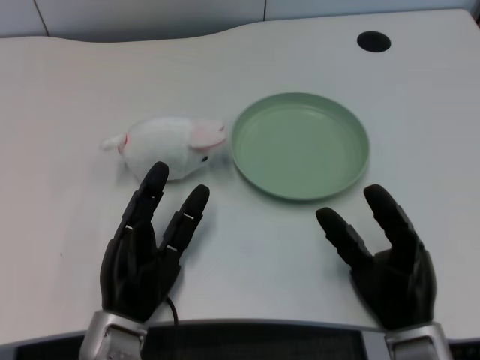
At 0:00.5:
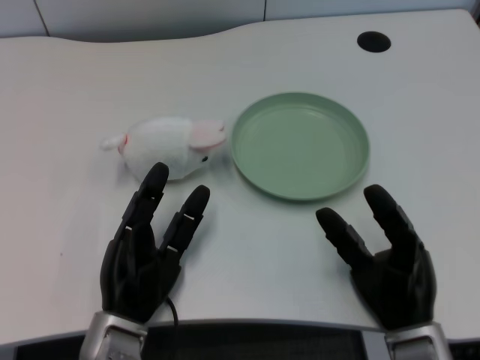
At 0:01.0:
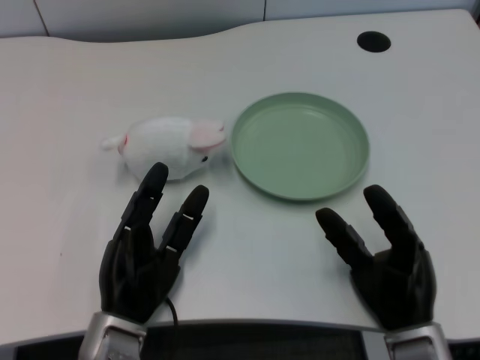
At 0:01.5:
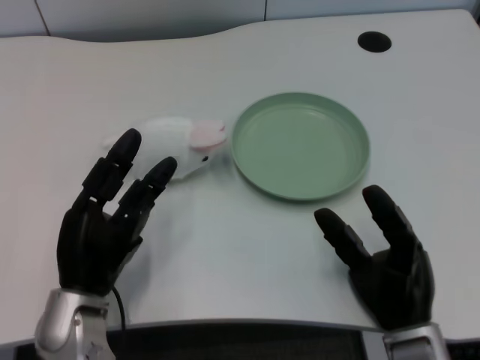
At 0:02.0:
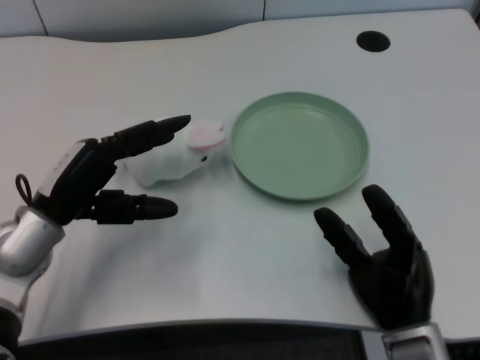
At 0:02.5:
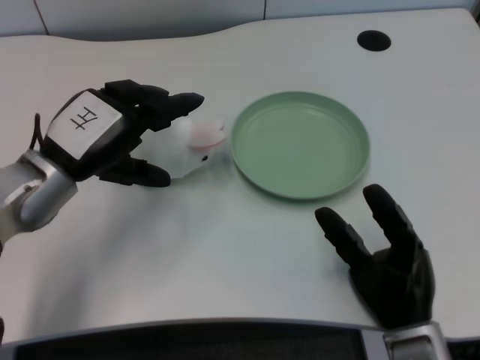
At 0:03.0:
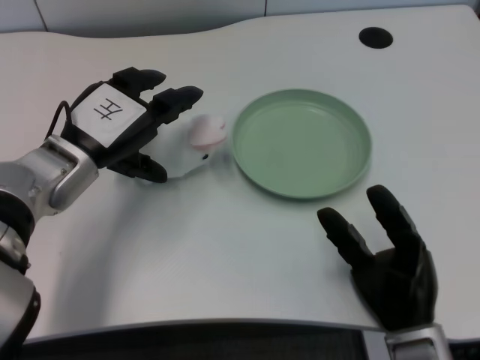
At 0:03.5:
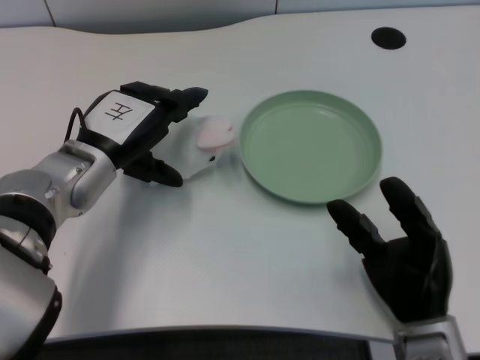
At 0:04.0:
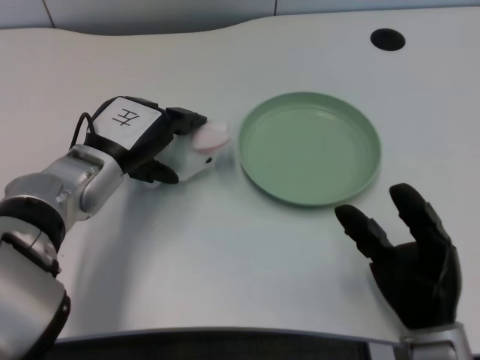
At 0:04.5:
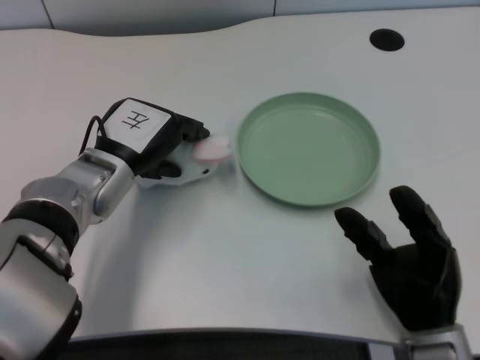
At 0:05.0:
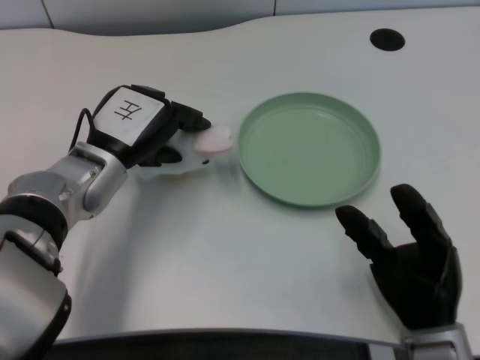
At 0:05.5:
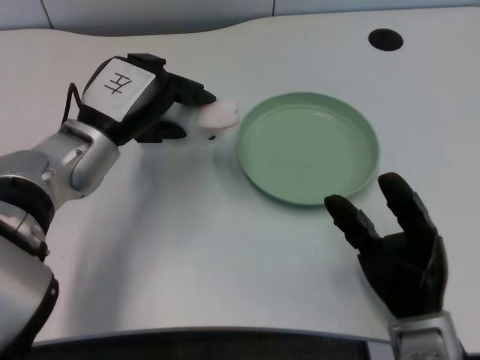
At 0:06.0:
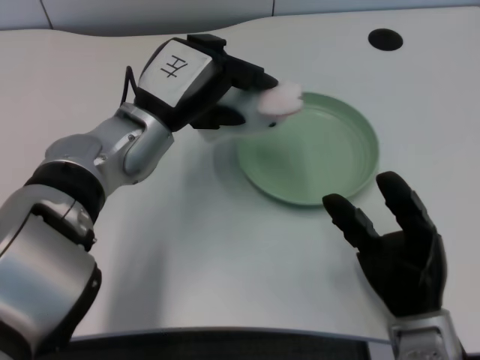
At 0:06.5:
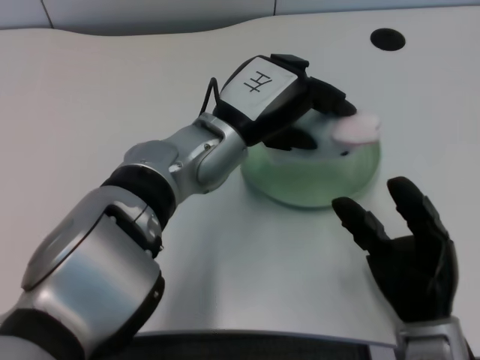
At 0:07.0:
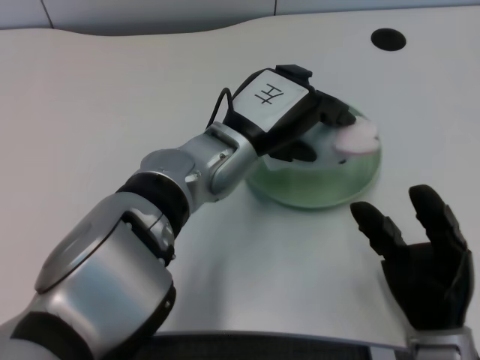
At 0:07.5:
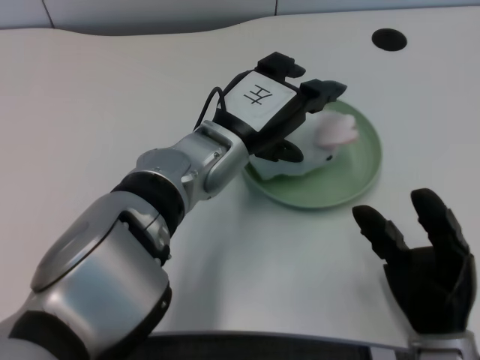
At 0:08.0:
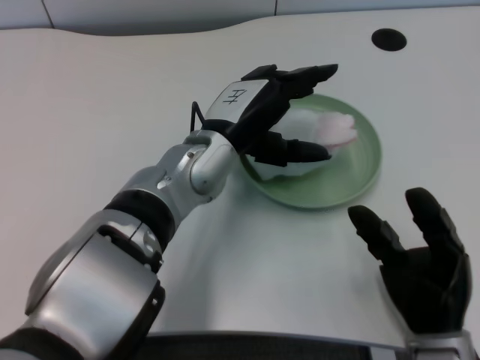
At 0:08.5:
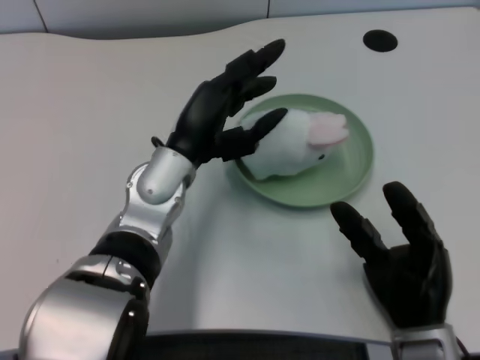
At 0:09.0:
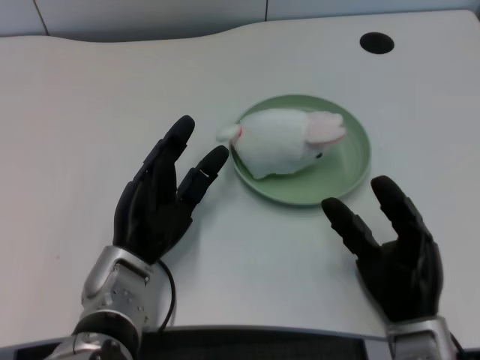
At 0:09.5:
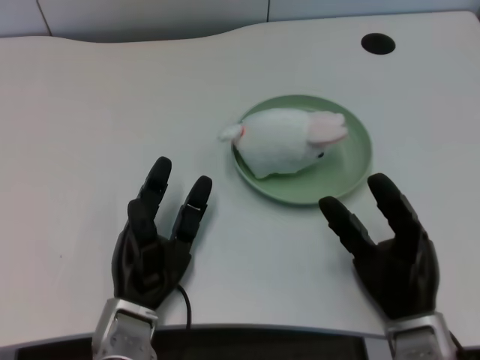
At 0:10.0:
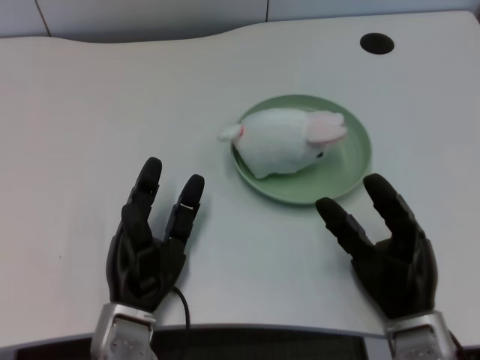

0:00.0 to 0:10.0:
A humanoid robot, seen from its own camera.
Task of the whole recording: pick up the rabbit doll from the table and place it on the plate.
Step, 0:01.5 to 0:05.0: Grasp the rabbit doll with the left gripper.
Step, 0:05.5 to 0:07.0: Place the rabbit doll into the plate with the left gripper.
0:02.0 to 0:04.0: The left hand shifts roughly 5 cm forward.
0:04.0 to 0:06.0: The left hand moves to the right, roughly 5 cm.
0:06.0 to 0:08.0: The left hand travels to the right by about 5 cm.
0:08.0 to 0:10.0: The left hand travels downward, backward and to the left by some 20 cm.

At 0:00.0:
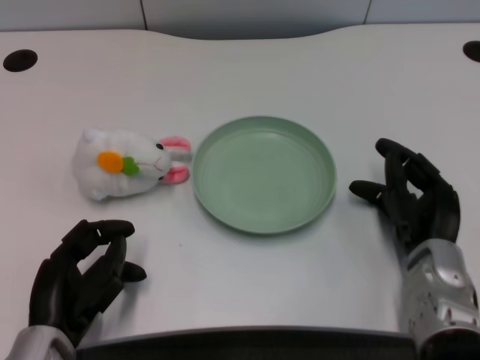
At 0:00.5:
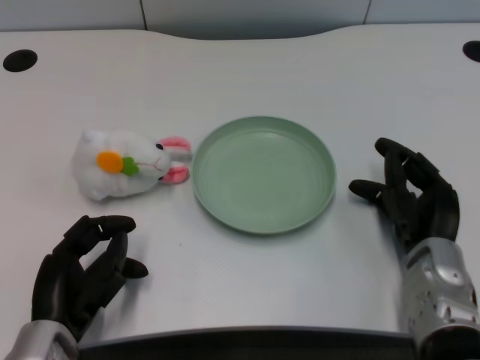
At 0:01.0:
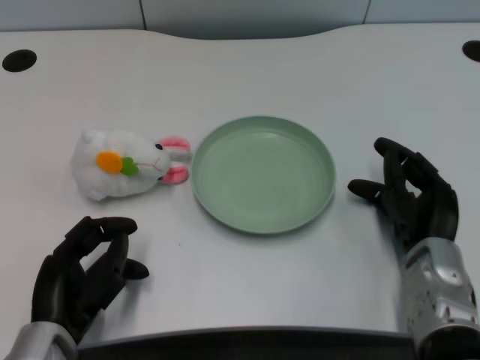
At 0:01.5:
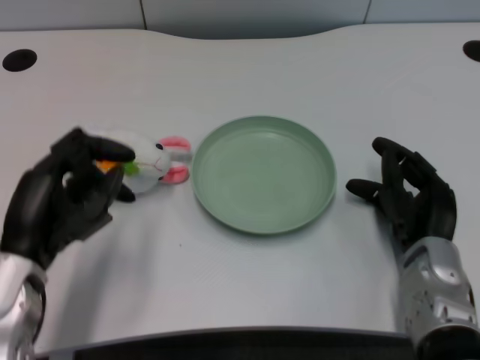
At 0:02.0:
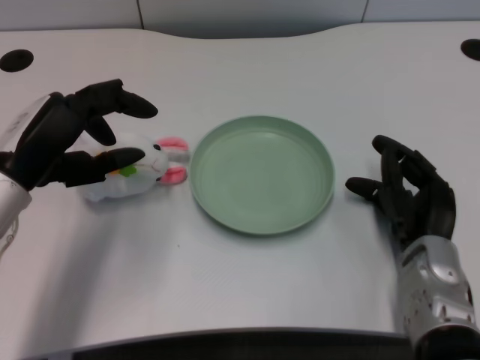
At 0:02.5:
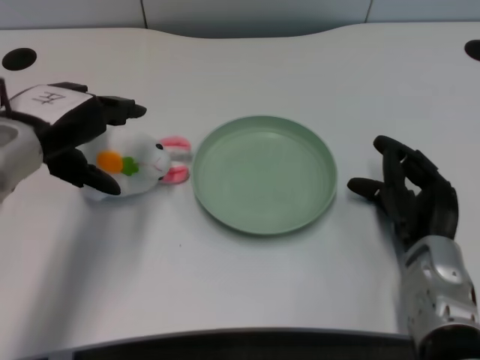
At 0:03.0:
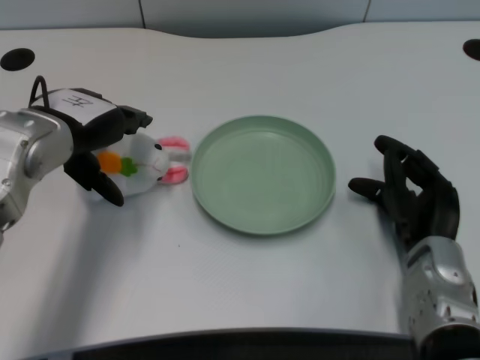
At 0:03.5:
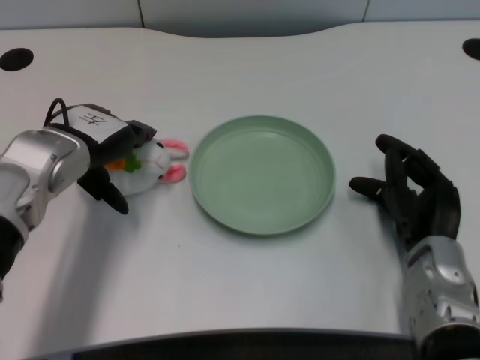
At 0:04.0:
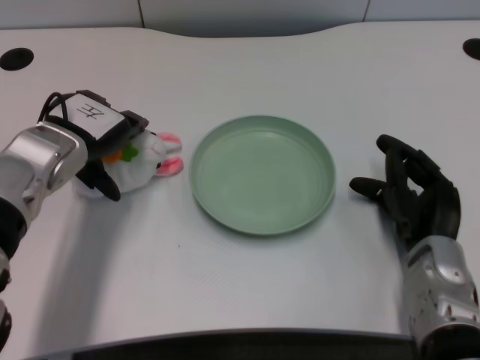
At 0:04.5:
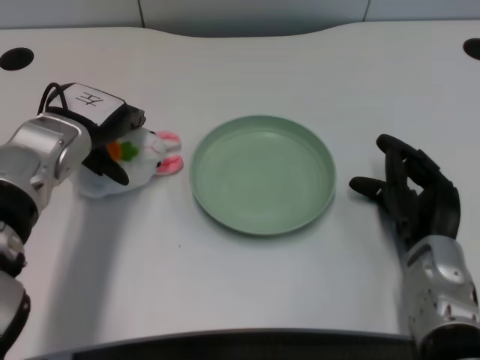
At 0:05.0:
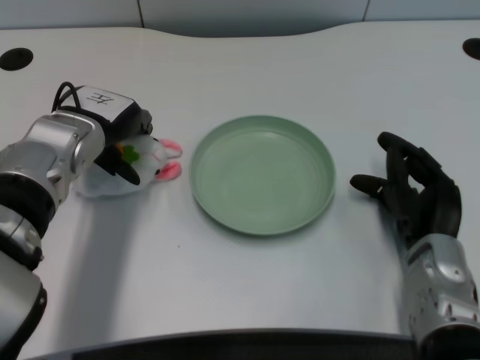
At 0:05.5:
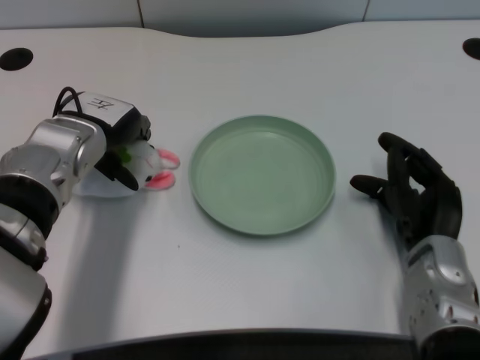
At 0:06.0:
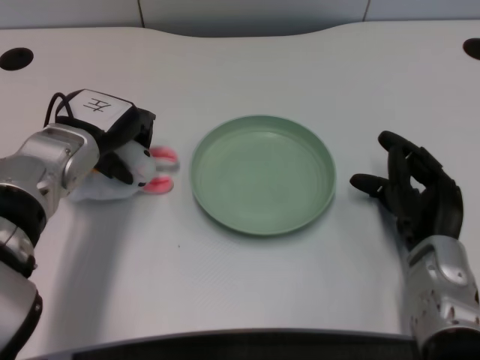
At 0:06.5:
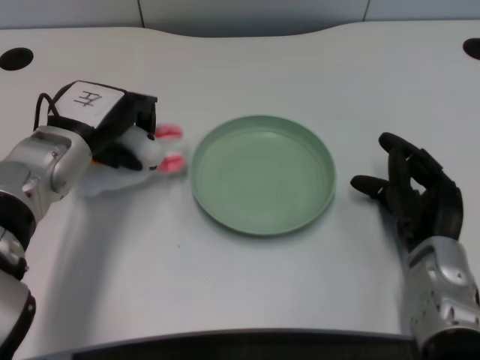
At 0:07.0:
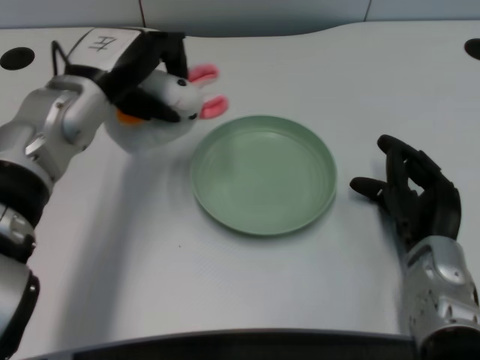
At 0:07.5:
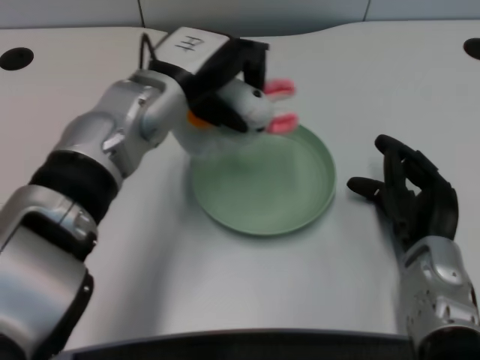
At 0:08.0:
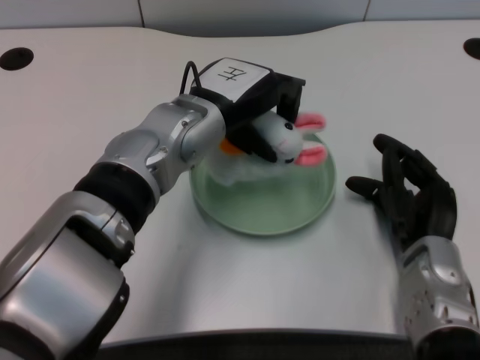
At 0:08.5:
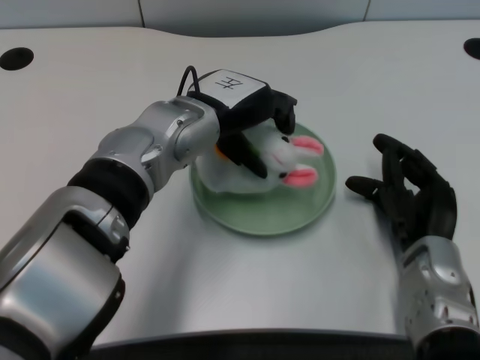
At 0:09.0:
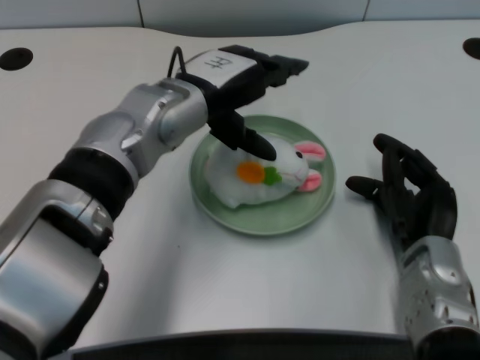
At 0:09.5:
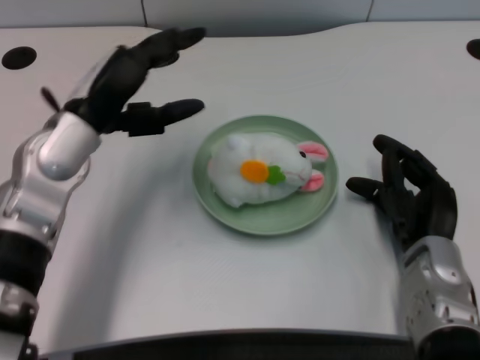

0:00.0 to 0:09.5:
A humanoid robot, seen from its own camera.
Task of the whole recording: pick up the rabbit doll from the table and place it on the plate.
Step, 0:01.5 to 0:06.5: Grasp the rabbit doll with the left gripper.
Step, 0:07.0 to 0:08.5: Place the rabbit doll into the plate with the left gripper.
0:02.0 to 0:04.0: The left hand travels forward by roughly 10 cm.
0:04.0 to 0:05.5: The hands move only a little.
0:05.5 to 0:07.5: The left hand moves to the right, about 10 cm.
0:07.5 to 0:09.5: The left hand goes some 10 cm to the left.

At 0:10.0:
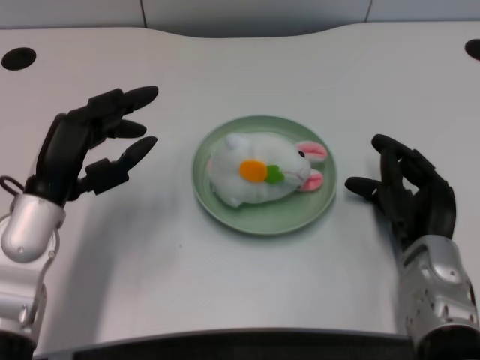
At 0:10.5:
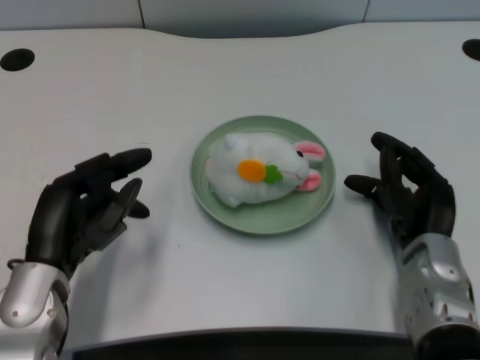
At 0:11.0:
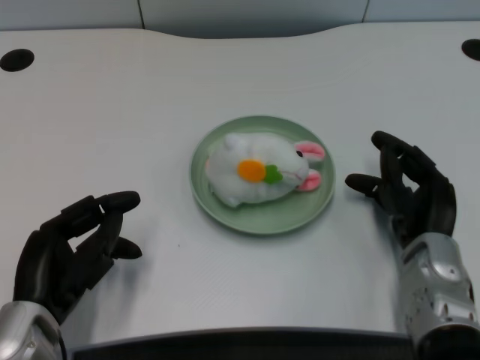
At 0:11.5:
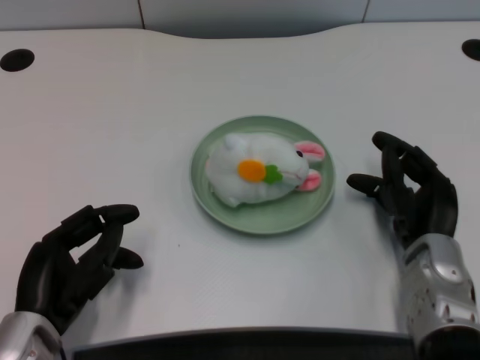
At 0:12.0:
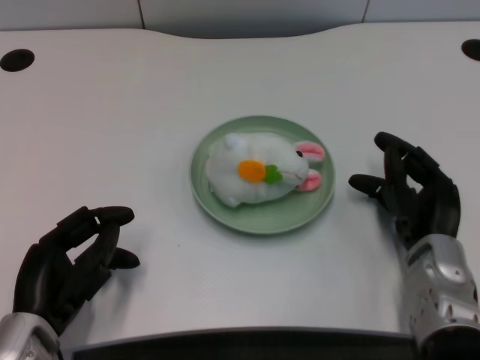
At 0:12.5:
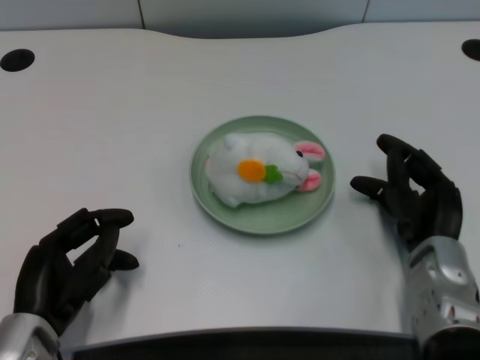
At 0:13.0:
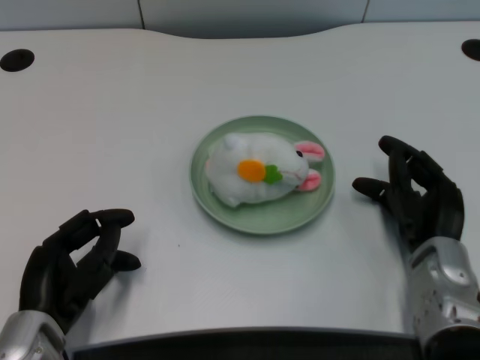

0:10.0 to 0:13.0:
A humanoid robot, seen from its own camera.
Task of the whole recording: pick up the rabbit doll from the table and place it on the plate.
0:10.0 to 0:11.5: The left hand heads backward and downward, covering approximately 10 cm.
0:11.5 to 0:13.0: Neither hand changes place.

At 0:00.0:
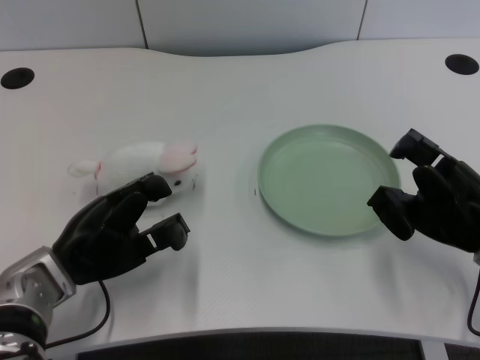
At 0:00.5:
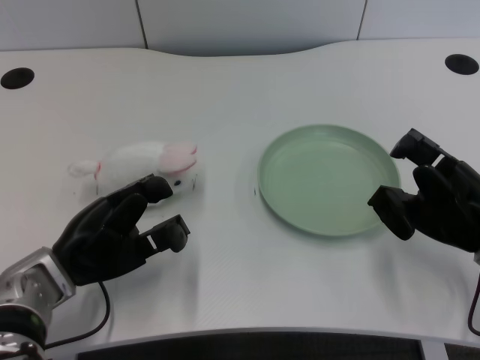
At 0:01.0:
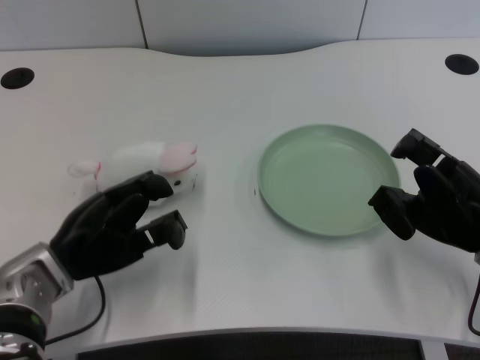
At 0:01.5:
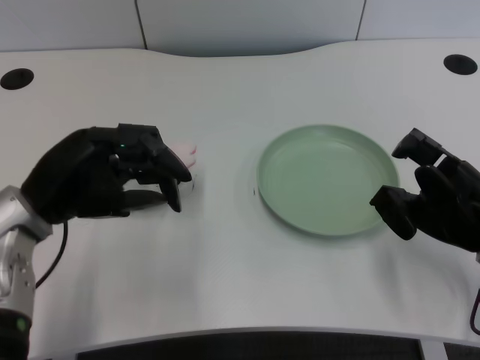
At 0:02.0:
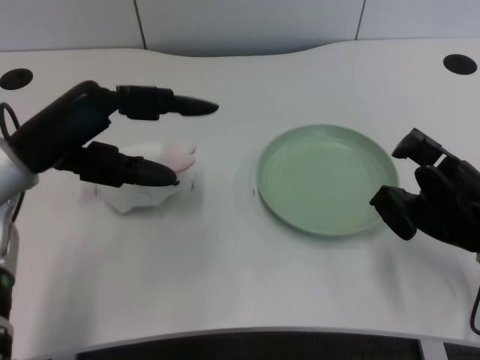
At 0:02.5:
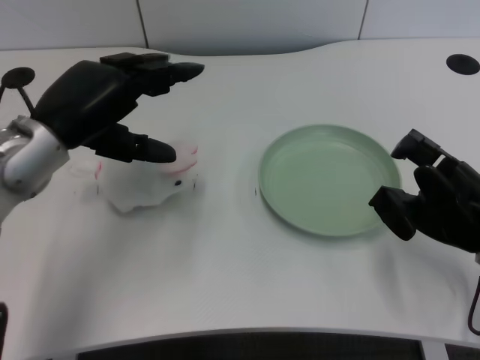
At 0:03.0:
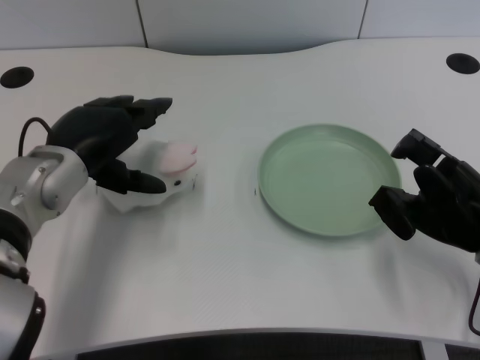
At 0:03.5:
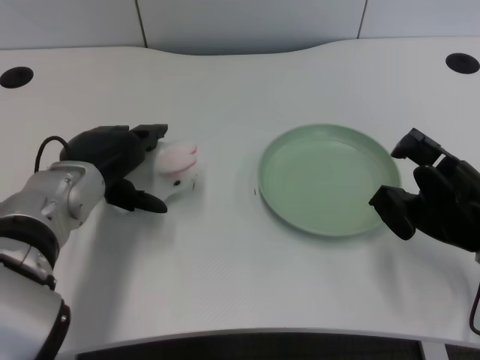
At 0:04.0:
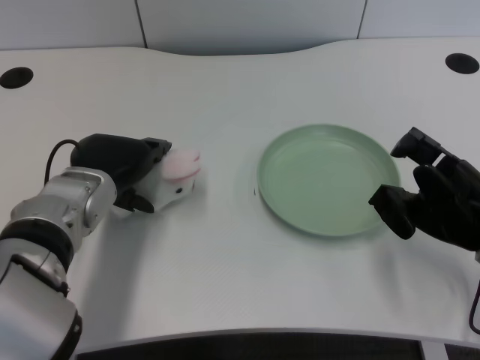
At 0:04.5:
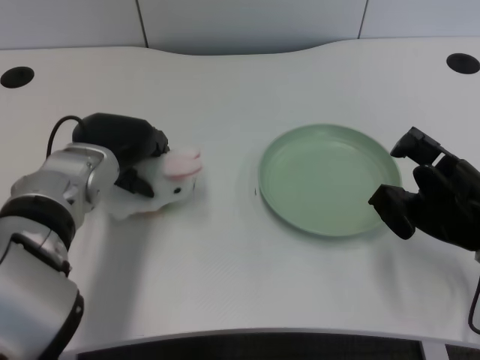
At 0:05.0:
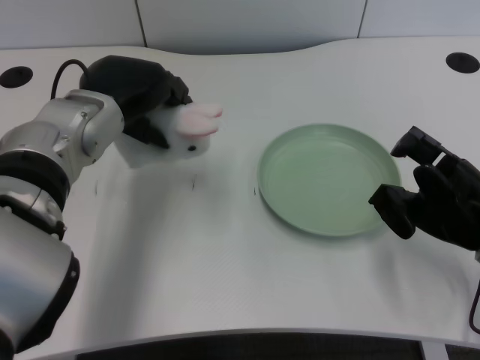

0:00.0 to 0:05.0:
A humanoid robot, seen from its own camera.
Task of the whole recording: pick up the rabbit doll from the table and place it on the plate.
Step, 0:01.0 to 0:04.5: Grasp the rabbit doll with the left gripper.
0:02.5 to 0:05.0: The left hand goes approximately 5 cm to the right.
